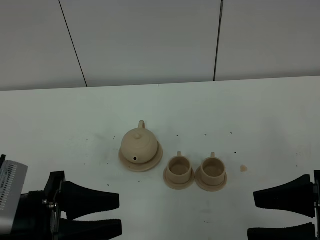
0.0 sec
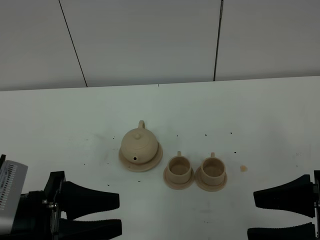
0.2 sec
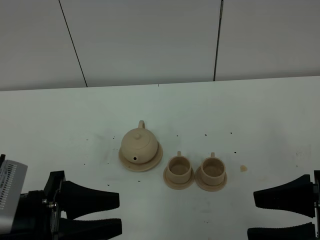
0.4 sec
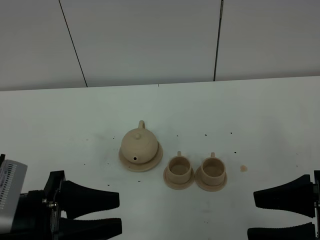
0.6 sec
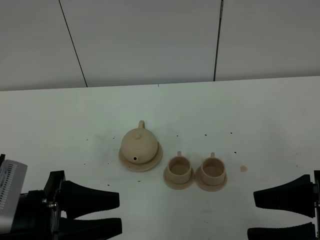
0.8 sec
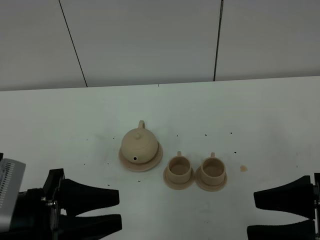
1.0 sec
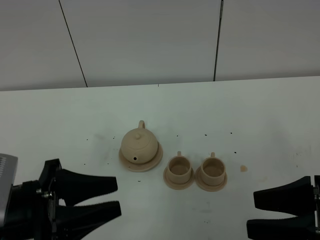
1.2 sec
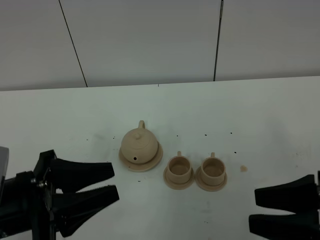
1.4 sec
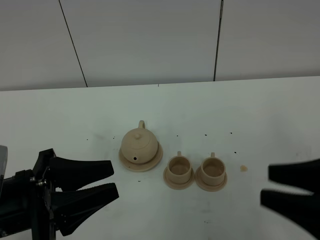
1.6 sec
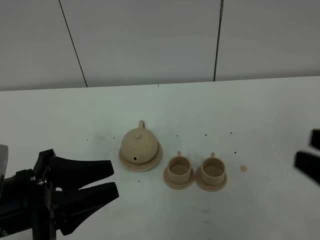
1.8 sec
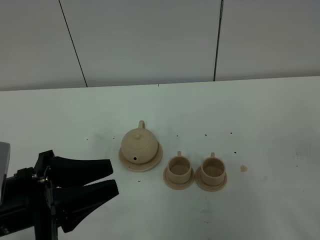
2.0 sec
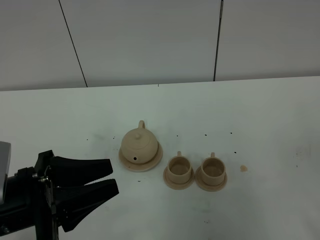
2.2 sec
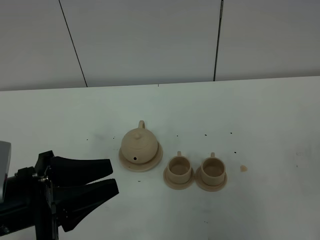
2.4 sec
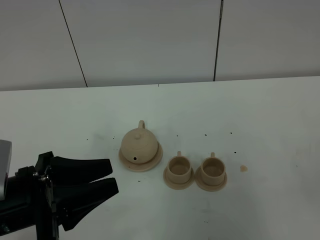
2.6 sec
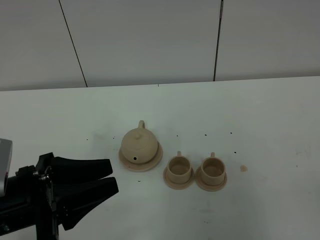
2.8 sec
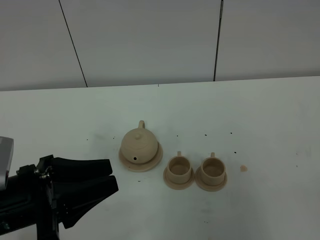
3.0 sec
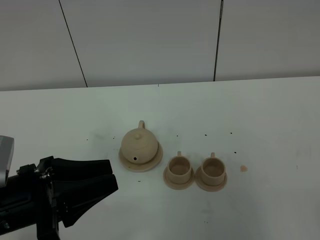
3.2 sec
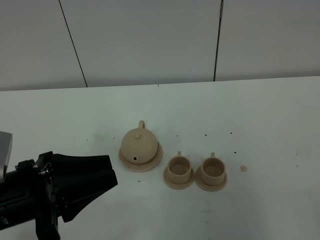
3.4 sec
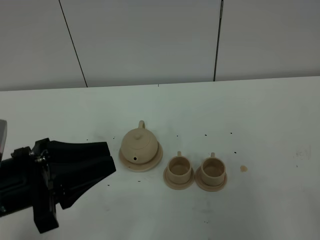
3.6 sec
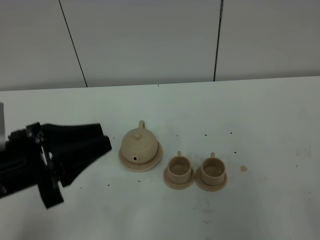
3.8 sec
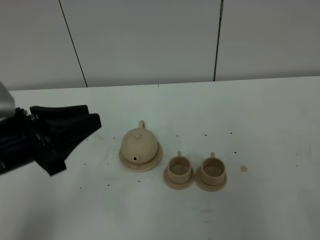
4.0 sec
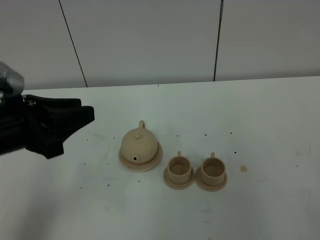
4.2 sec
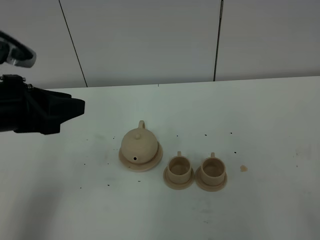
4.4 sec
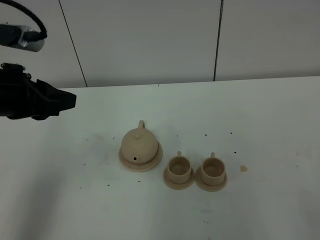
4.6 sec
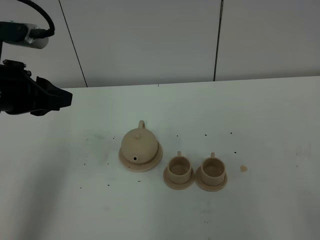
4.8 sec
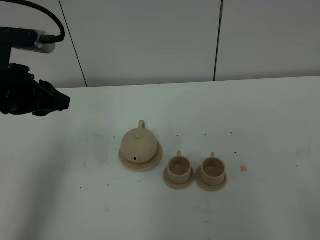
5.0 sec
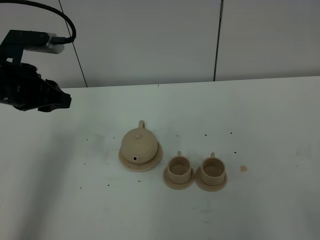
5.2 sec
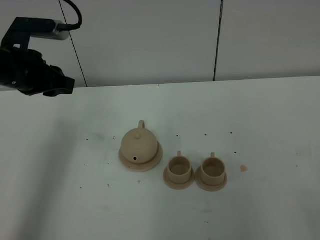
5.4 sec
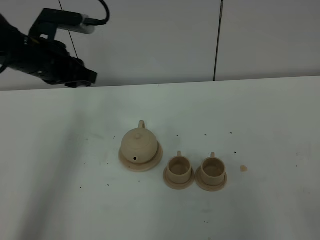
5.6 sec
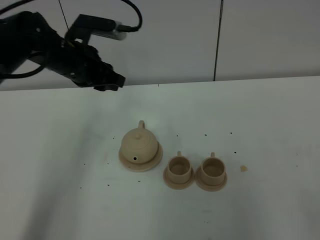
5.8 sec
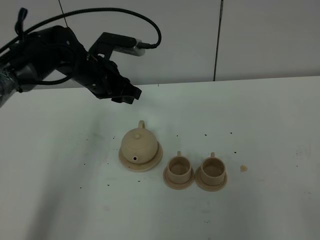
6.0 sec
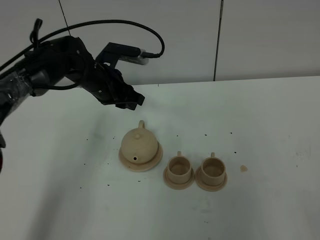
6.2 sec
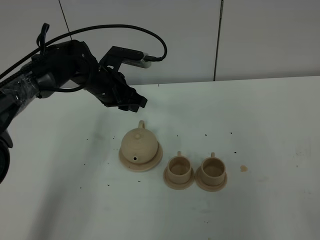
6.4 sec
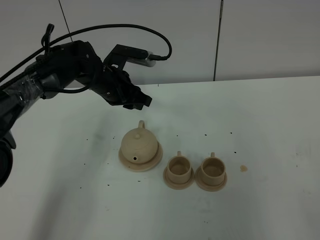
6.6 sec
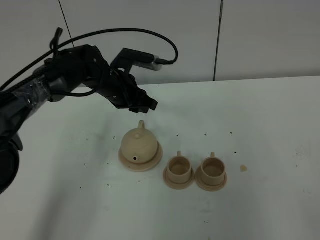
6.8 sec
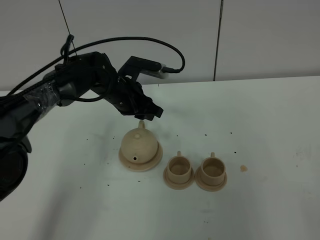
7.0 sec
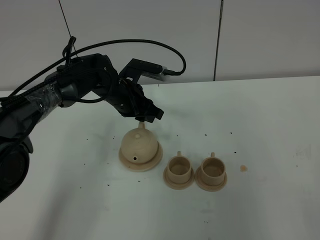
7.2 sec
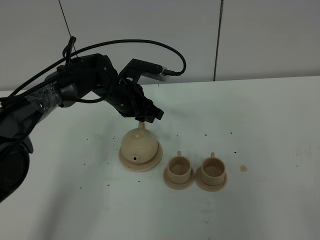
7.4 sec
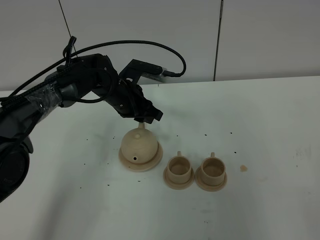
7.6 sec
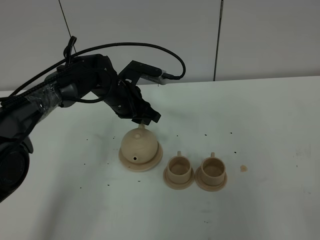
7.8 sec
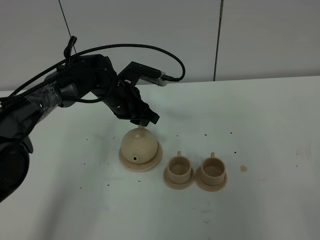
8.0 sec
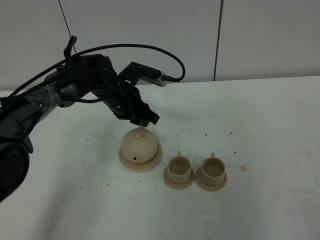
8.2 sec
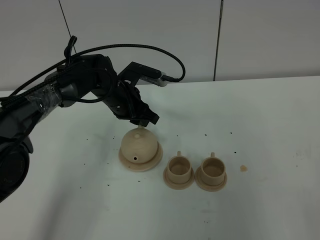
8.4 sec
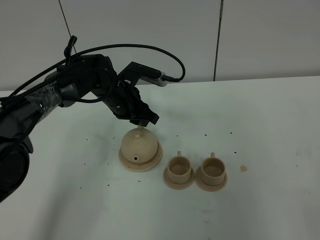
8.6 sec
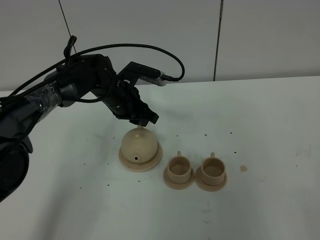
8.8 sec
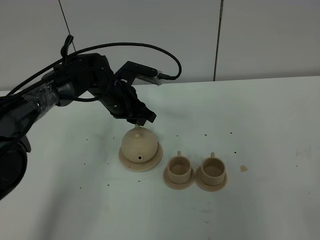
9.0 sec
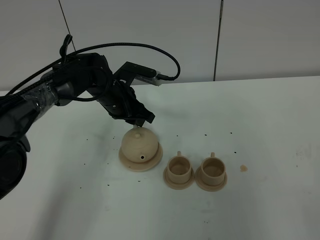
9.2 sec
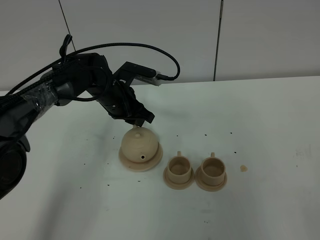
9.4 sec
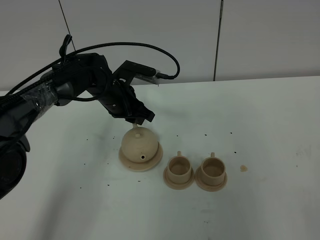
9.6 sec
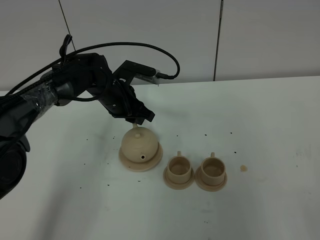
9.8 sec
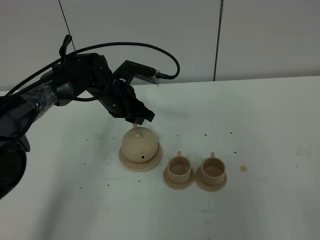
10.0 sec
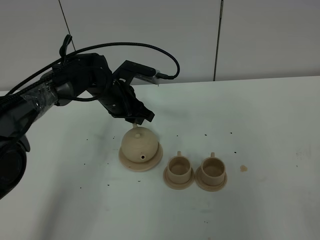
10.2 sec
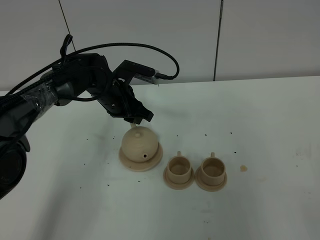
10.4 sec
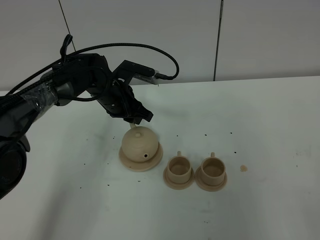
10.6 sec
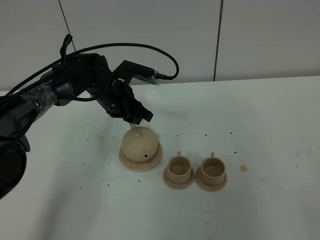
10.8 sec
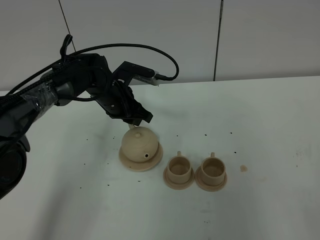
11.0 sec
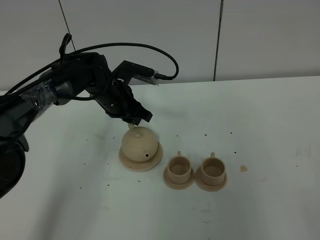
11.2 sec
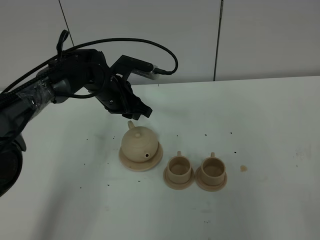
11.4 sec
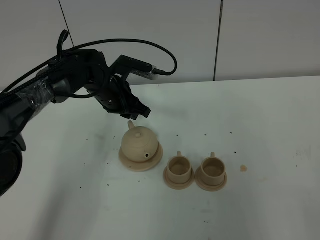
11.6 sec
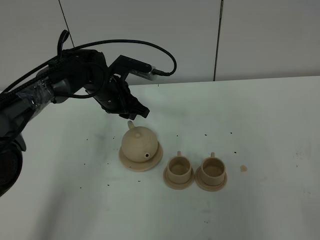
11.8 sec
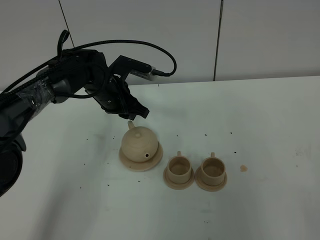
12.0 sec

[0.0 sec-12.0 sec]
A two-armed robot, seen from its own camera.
Task of the whole recording: grasp the brown teapot and pour the tea into the two brown teacups one by one, put the brown teapot back in its original place.
0.0 sec to 1.6 sec: The right gripper heads upward, covering about 5 cm.
1.6 sec to 3.0 sec: The right gripper goes approximately 15 cm backward and to the right.
3.0 sec to 4.4 sec: The left gripper is displaced forward and upward by about 15 cm.
4.4 sec to 6.0 sec: The left gripper moves forward, downward and to the right, roughly 25 cm.
6.0 sec to 7.6 sec: The left gripper moves downward, some 5 cm.
7.6 sec to 9.0 sec: Neither gripper changes place.
9.0 sec to 10.4 sec: Both grippers stay about where they are.
10.4 sec to 12.0 sec: Neither gripper changes place.

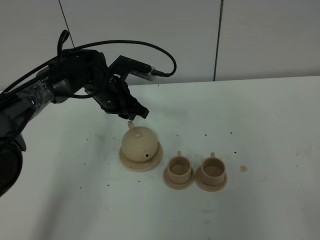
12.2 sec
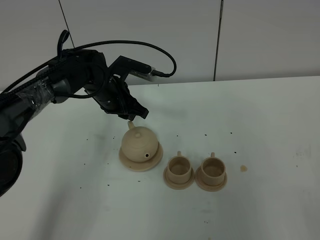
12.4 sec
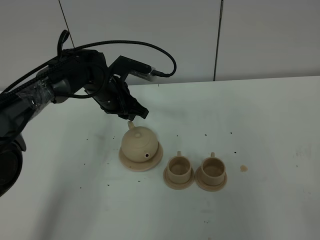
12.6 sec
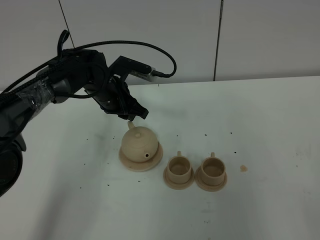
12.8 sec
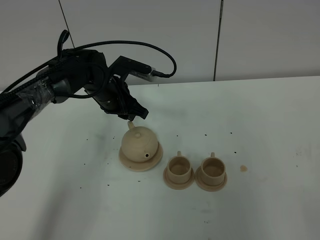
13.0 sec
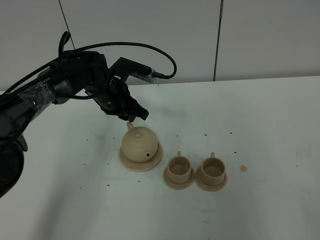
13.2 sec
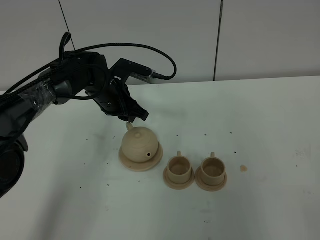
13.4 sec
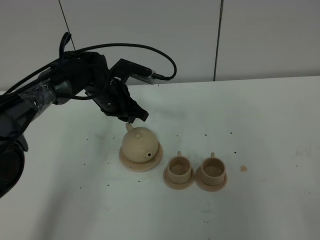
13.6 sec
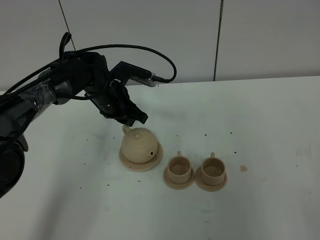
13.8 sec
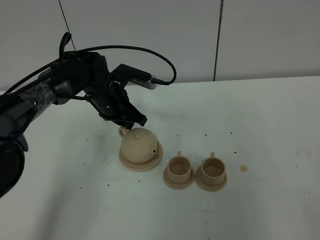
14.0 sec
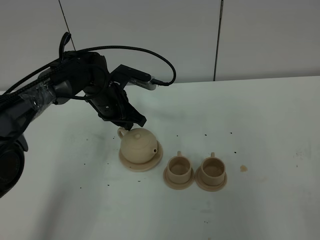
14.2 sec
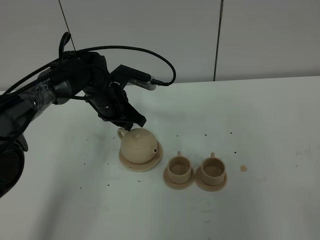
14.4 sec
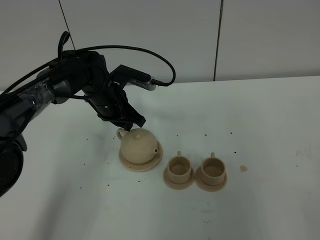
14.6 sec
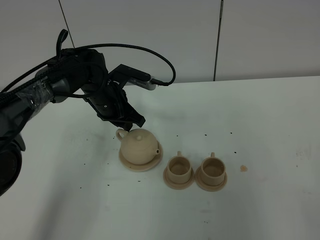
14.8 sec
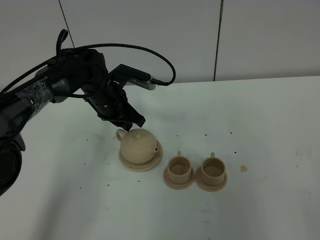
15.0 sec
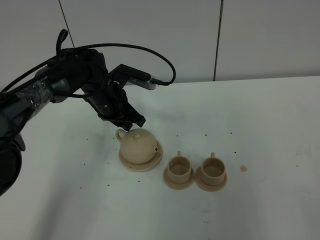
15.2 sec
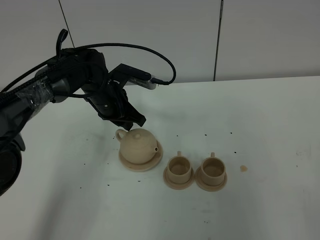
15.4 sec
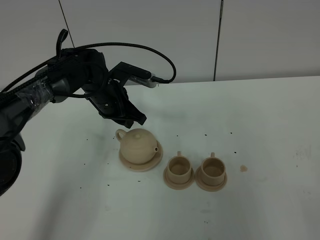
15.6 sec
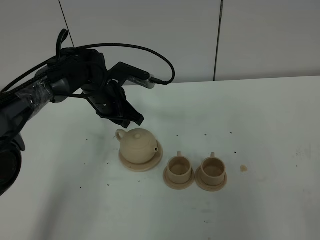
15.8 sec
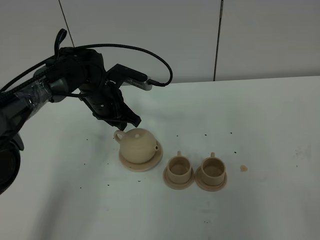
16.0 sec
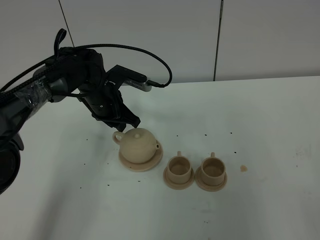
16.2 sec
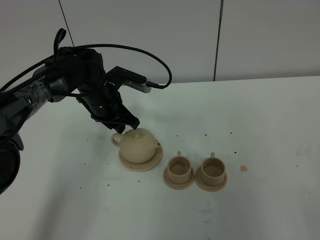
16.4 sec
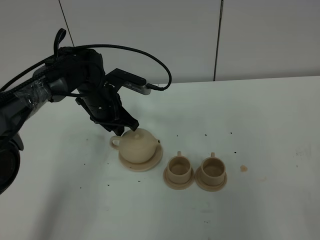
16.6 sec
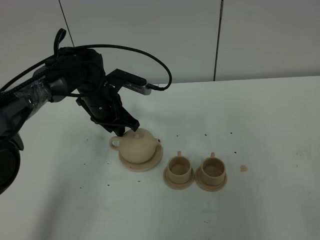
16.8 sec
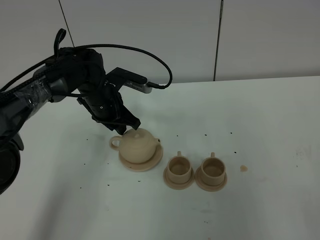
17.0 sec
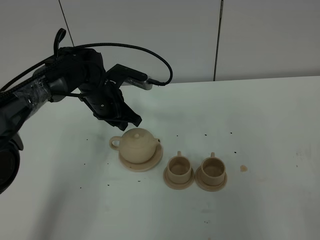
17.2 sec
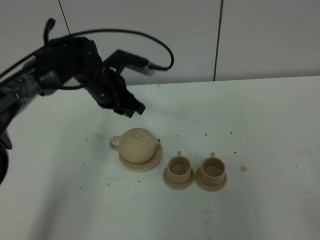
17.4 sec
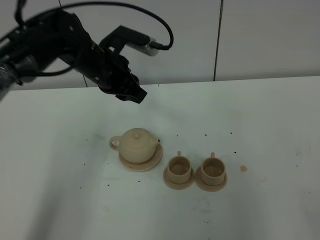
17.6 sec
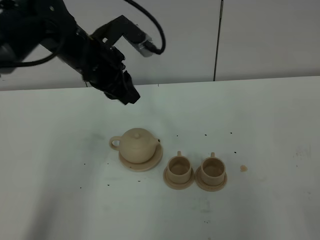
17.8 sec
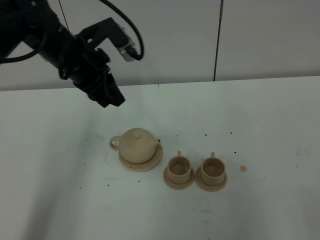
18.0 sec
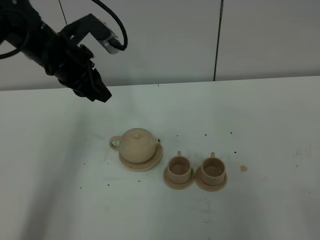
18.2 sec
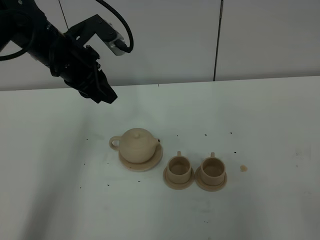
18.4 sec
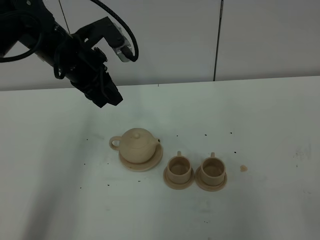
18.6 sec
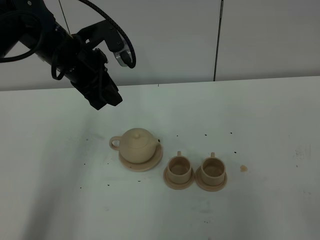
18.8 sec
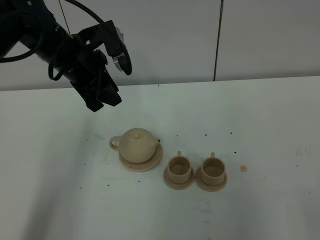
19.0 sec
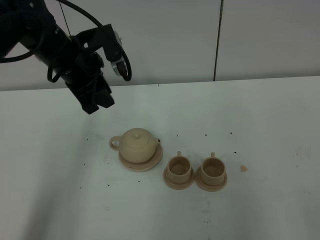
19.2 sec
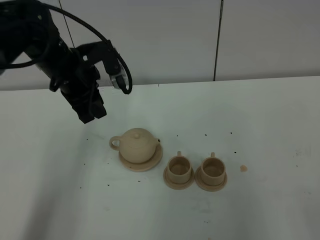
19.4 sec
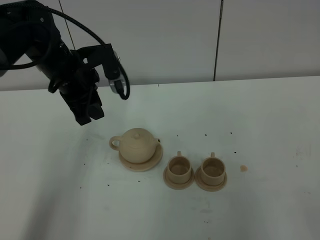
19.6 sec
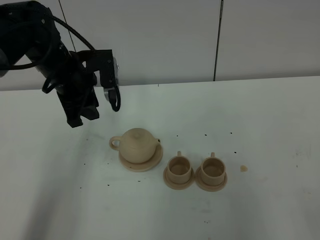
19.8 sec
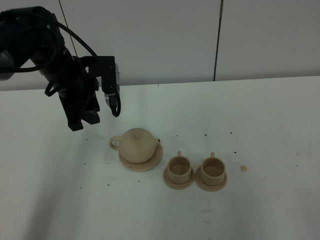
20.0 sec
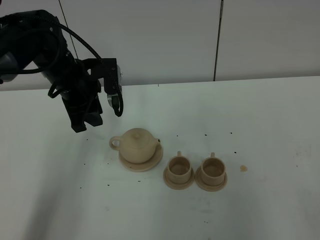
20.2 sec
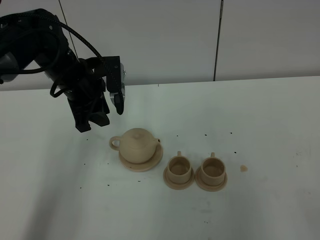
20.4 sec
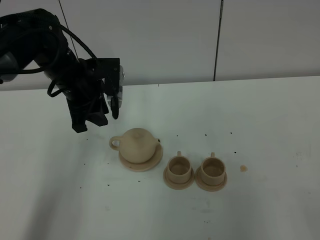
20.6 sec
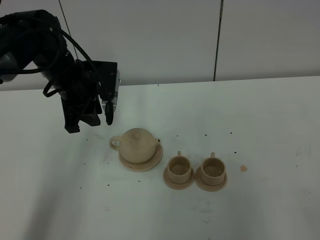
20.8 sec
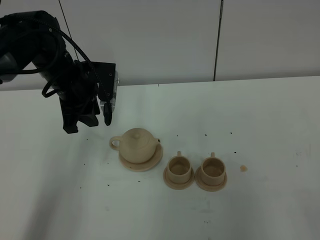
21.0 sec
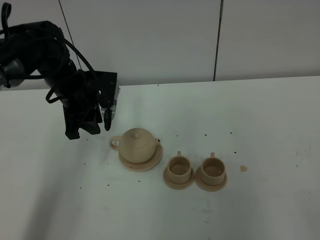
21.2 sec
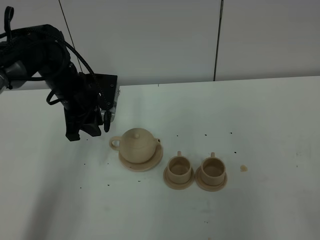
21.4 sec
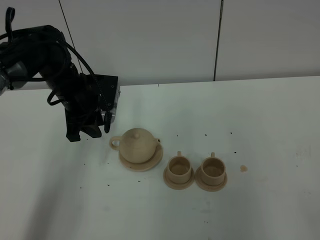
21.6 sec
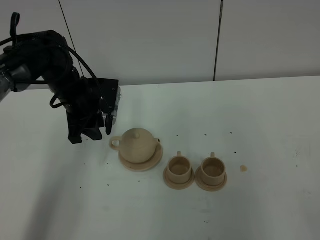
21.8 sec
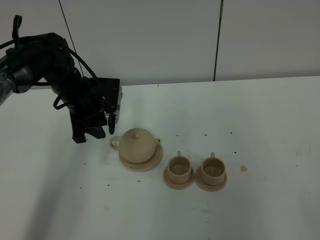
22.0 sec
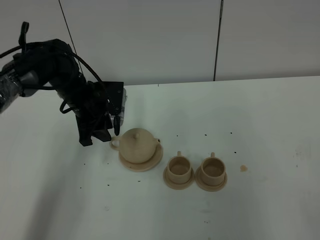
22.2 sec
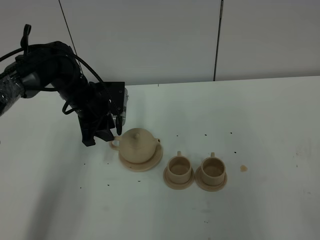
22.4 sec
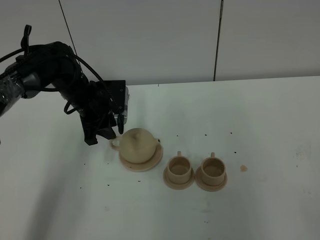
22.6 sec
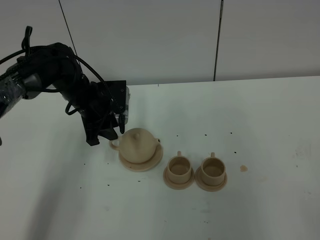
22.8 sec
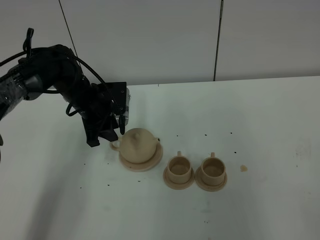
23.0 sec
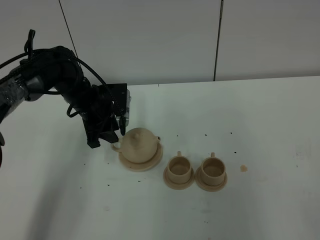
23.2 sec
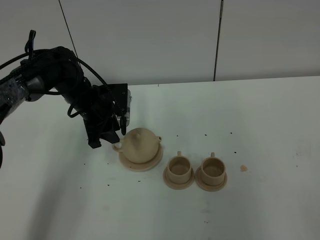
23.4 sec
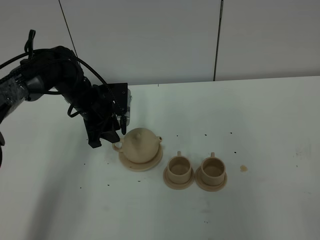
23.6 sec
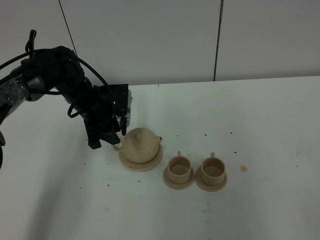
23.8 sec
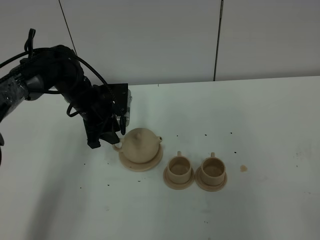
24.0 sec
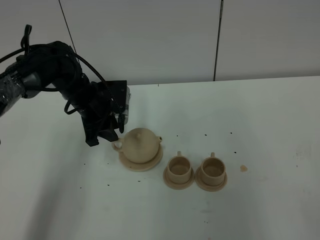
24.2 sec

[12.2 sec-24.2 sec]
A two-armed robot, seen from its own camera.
Task of the whole recording: grasp the brown teapot and pour the tea into the two brown teacups one by one, put the brown teapot back in its original place.
12.2 sec to 13.8 sec: The two grippers keep their place.
13.8 sec to 15.2 sec: Both grippers stay put.
15.2 sec to 16.6 sec: There are only small adjustments of the grippers.
16.6 sec to 18.2 sec: The left gripper moves upward, about 15 cm.
19.8 sec to 21.2 sec: The left gripper moves some 5 cm.
21.2 sec to 22.6 sec: The left gripper shifts by some 5 cm.
22.6 sec to 24.2 sec: The grippers make only small movements.
